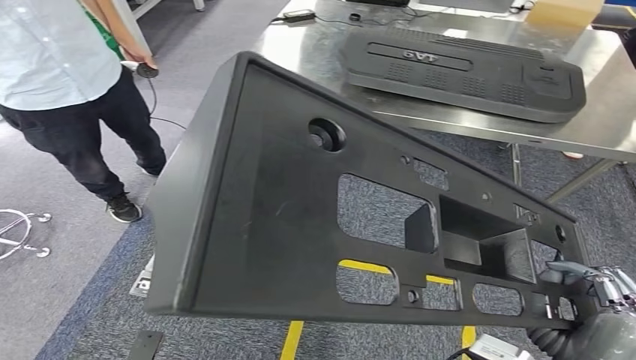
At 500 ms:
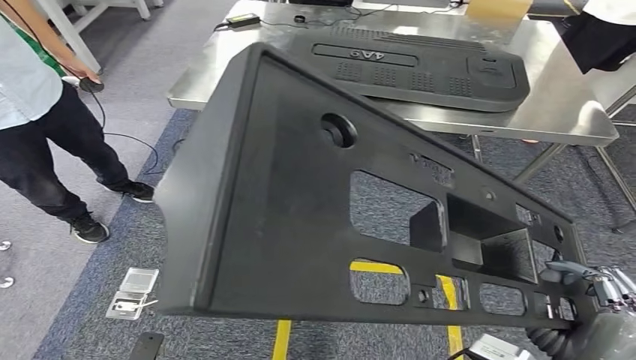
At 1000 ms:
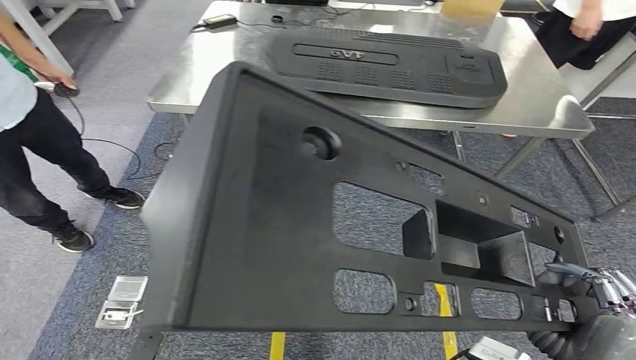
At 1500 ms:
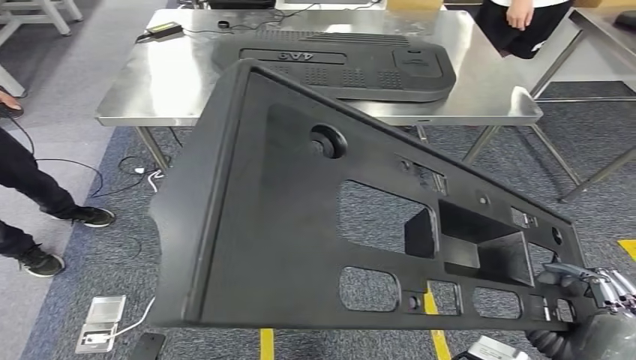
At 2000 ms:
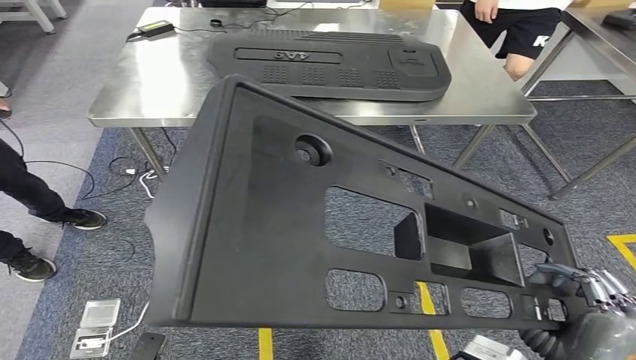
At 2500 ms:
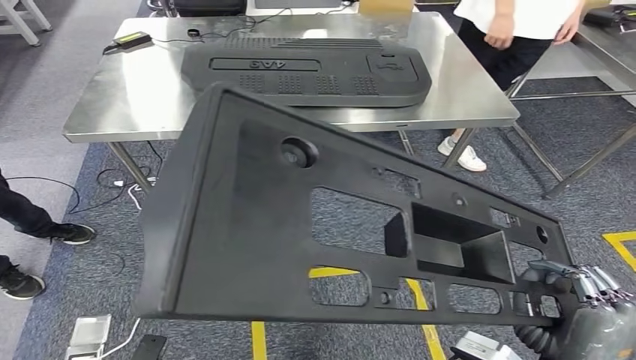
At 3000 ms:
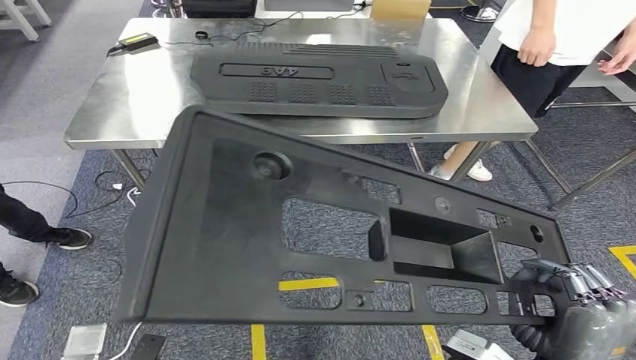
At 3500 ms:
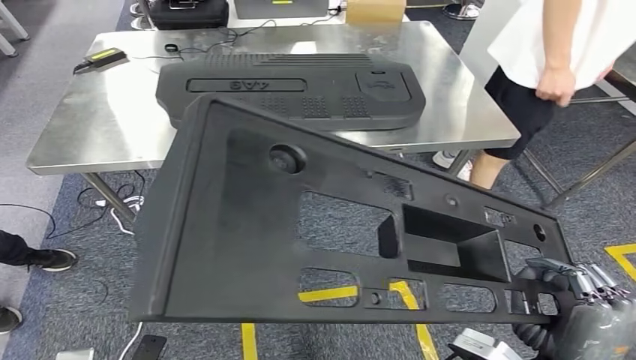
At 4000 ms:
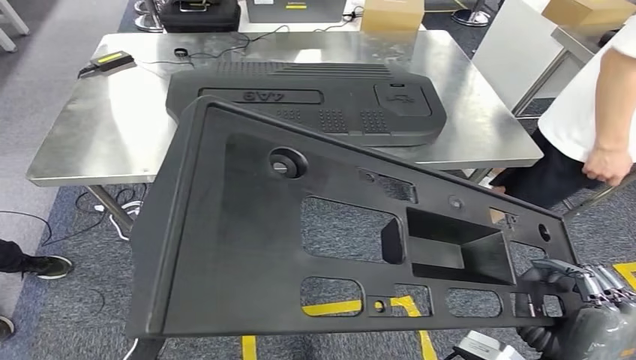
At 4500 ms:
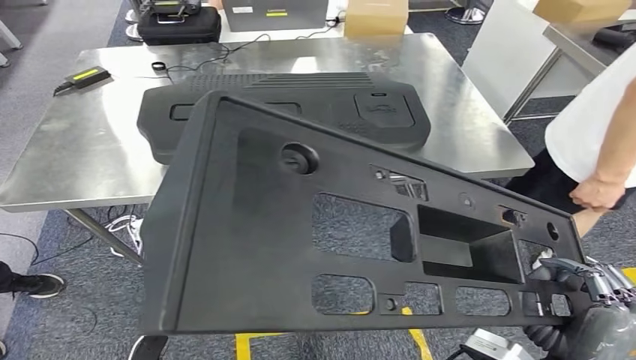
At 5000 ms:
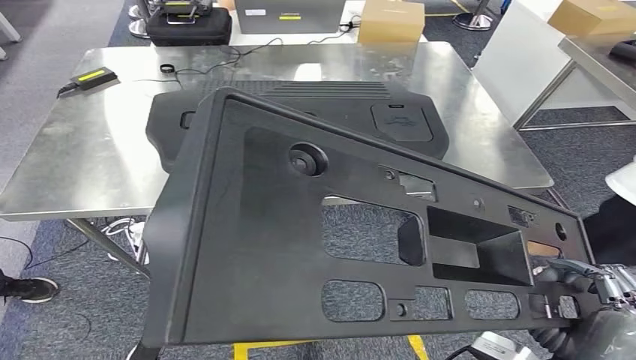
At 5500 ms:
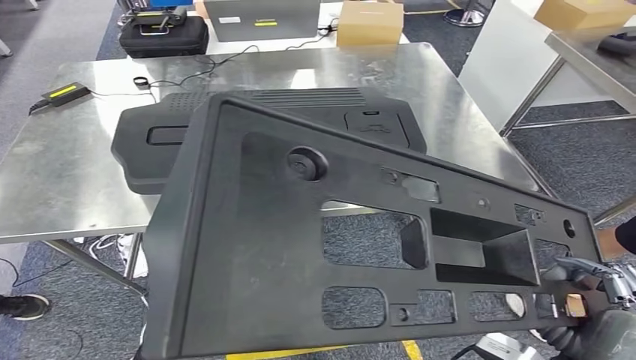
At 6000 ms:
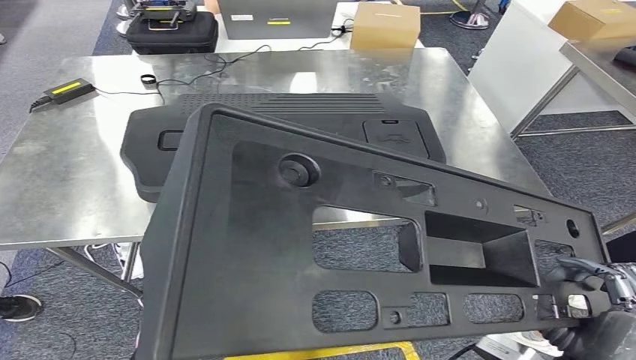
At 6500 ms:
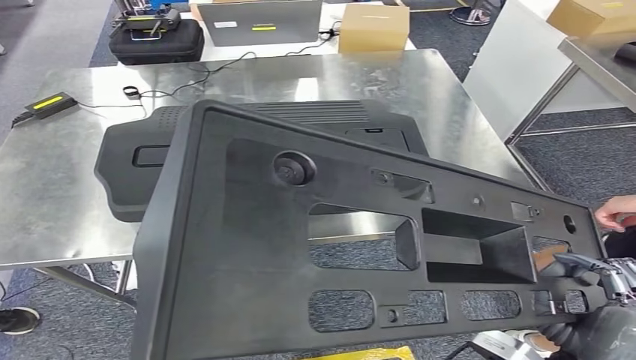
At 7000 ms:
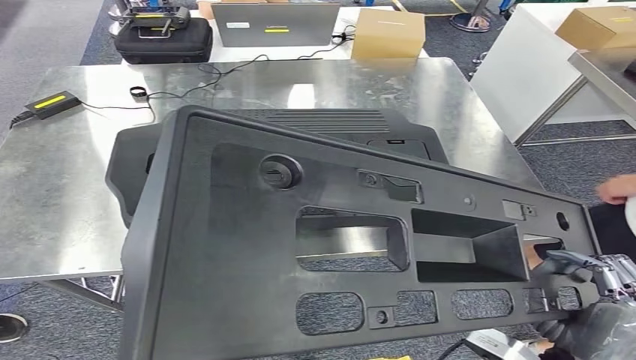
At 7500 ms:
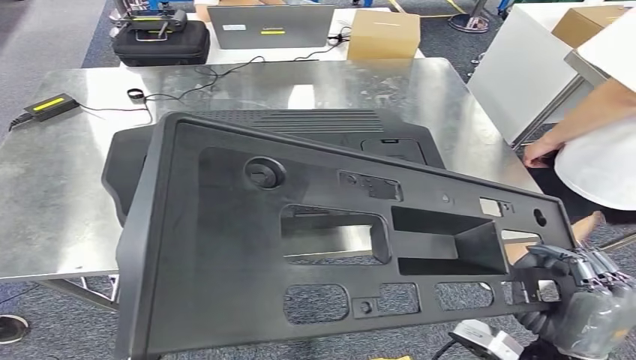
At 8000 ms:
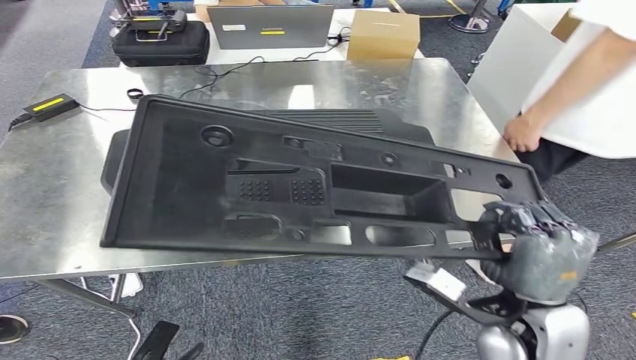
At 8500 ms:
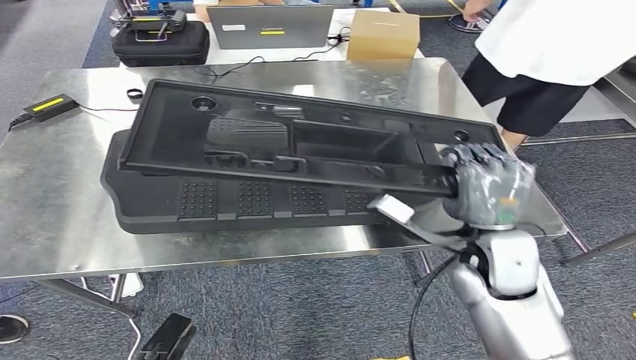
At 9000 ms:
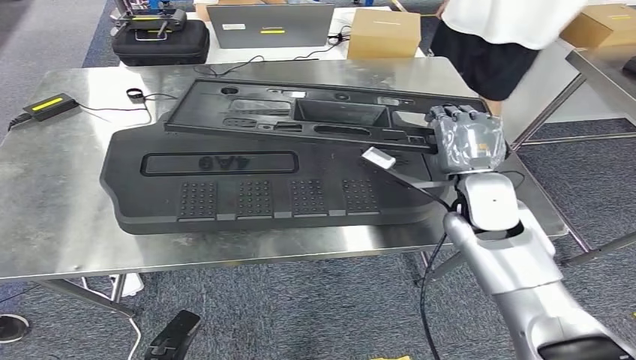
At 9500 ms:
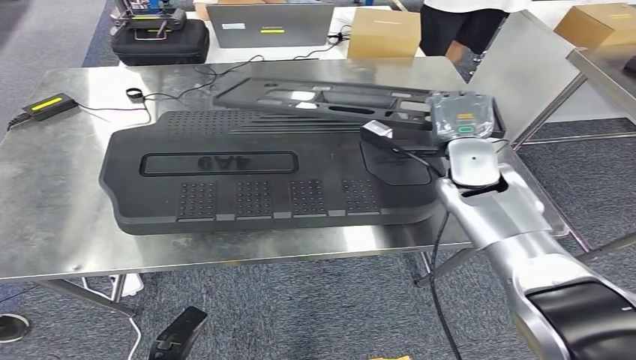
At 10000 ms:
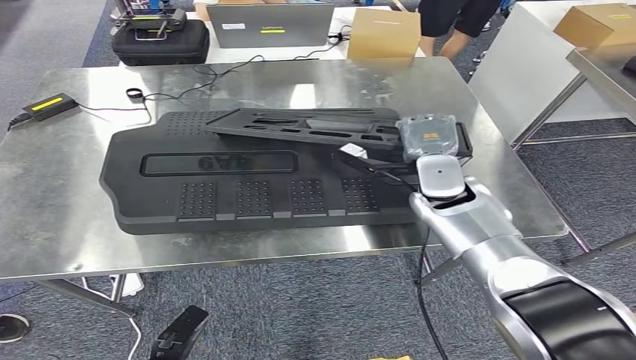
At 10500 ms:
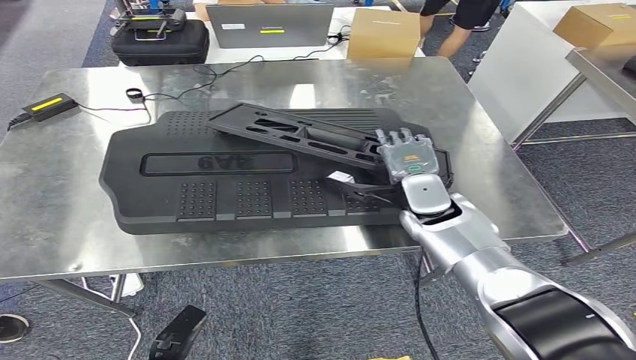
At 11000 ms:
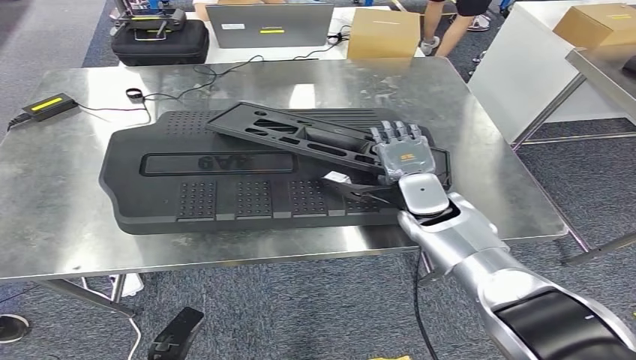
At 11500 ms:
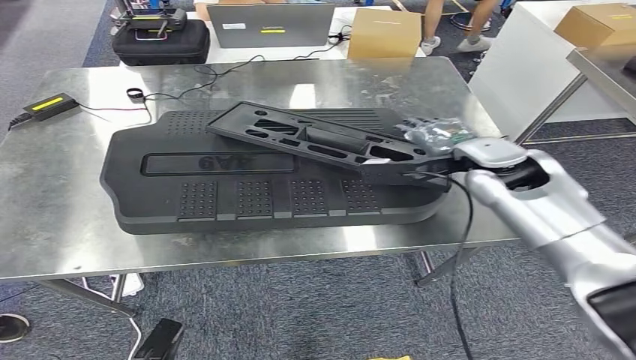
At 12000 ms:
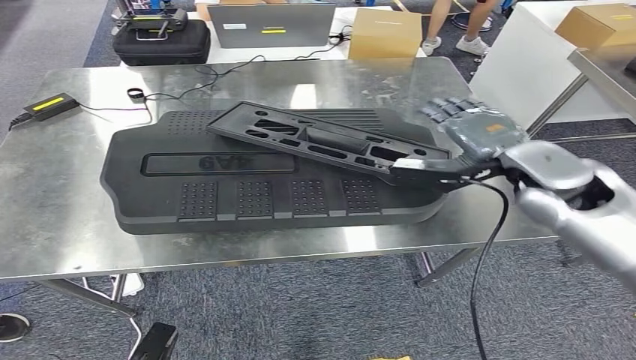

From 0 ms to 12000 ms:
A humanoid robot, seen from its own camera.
Step, from 0 ms to 6500 ms: Move the large material to the workbench.
Step, from 7000 ms to 11500 ms: Insert the large material into the corresponding slot on the workbench.

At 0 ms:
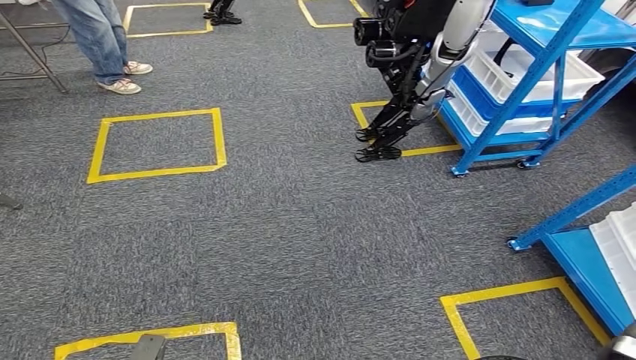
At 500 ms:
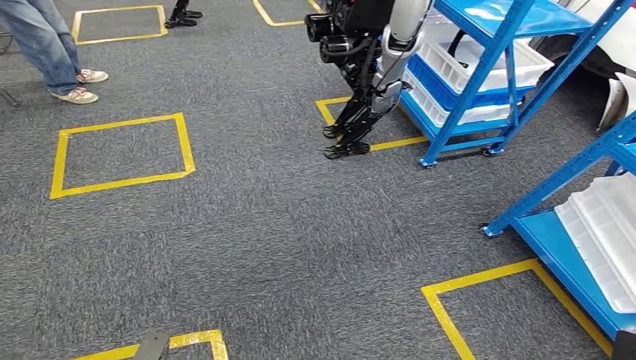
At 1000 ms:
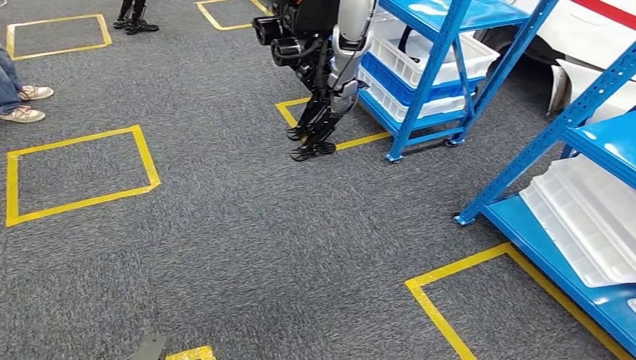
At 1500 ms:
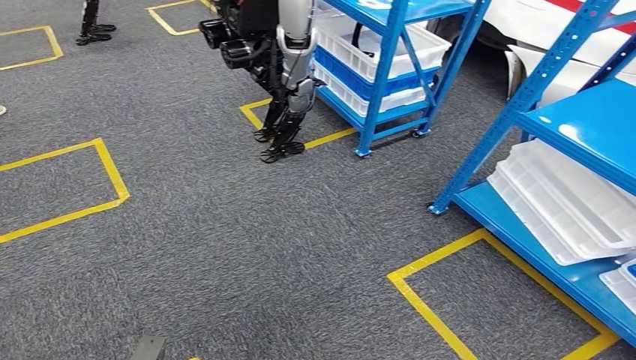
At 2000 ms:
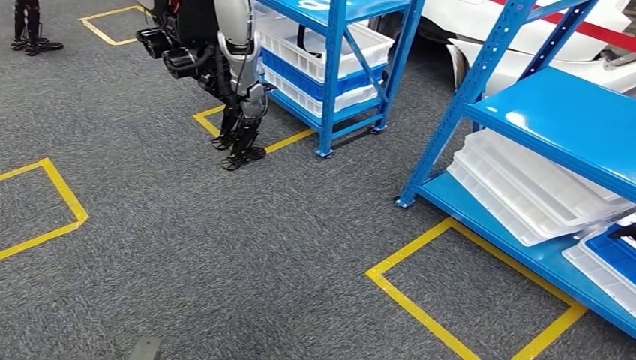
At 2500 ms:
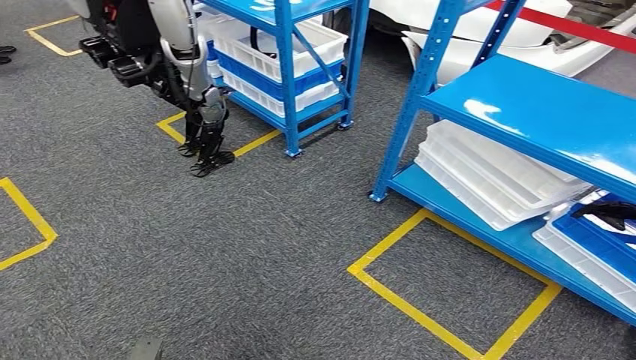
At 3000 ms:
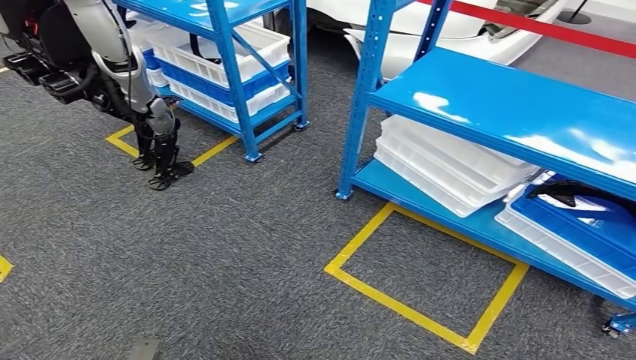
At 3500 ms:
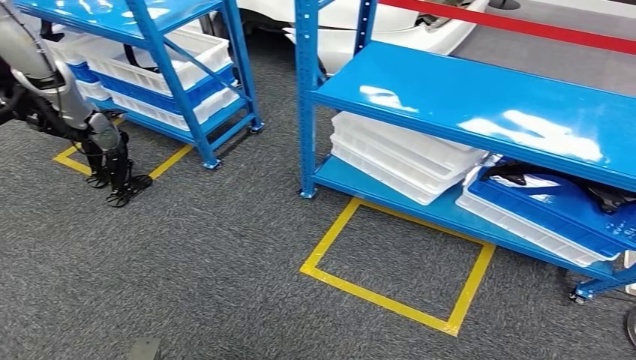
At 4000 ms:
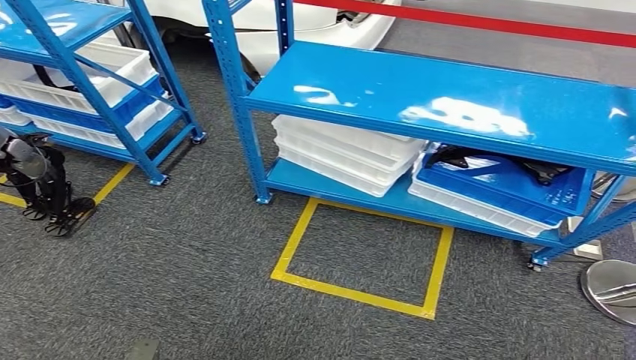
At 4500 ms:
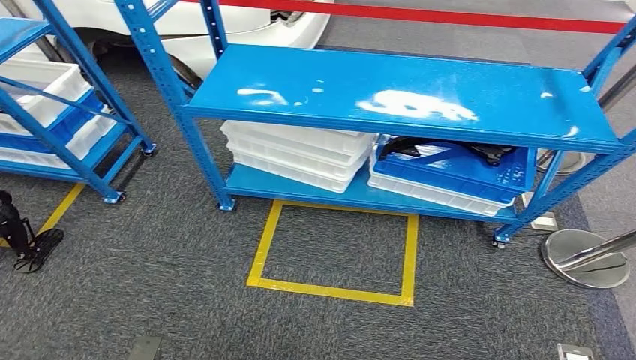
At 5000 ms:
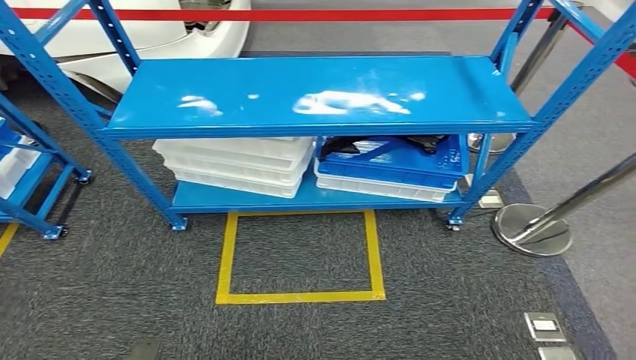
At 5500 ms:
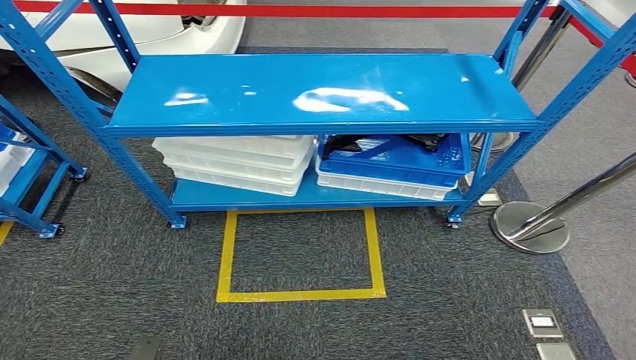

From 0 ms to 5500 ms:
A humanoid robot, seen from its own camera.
Step, from 0 ms to 5500 ms: Move to the initial position of the shelf.
